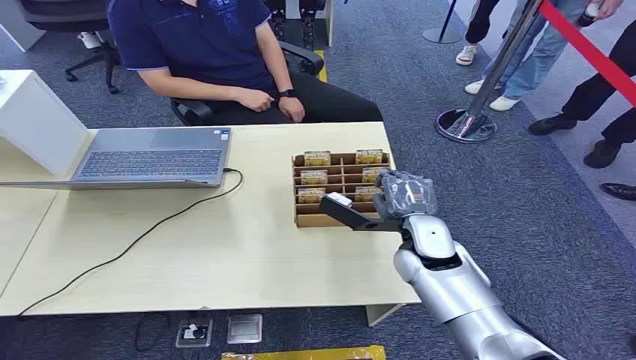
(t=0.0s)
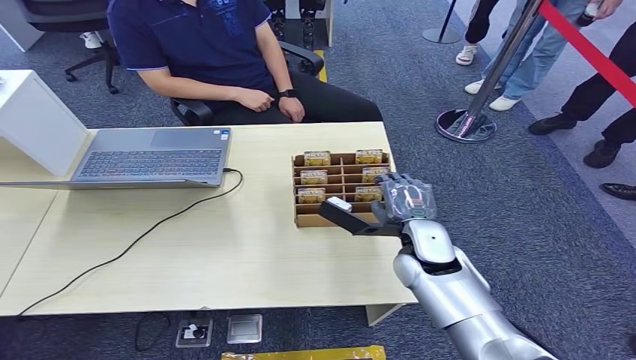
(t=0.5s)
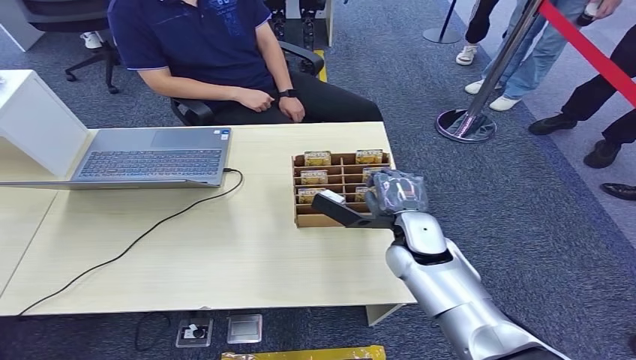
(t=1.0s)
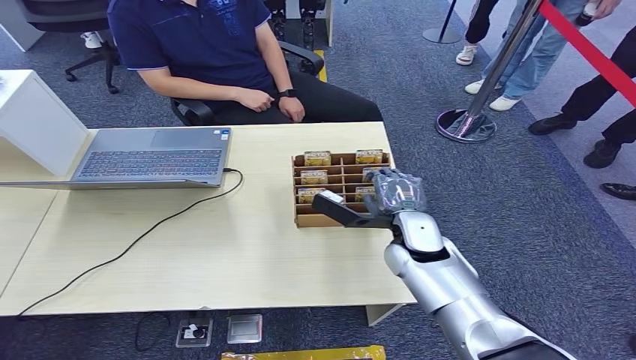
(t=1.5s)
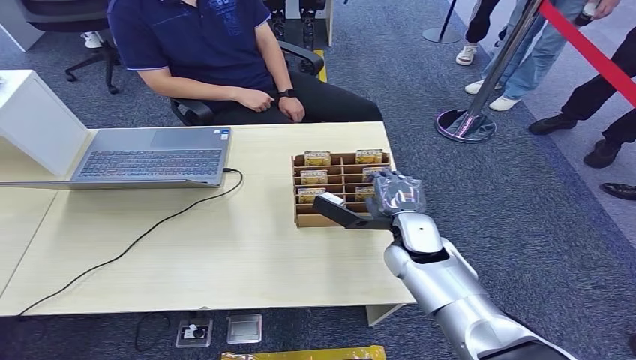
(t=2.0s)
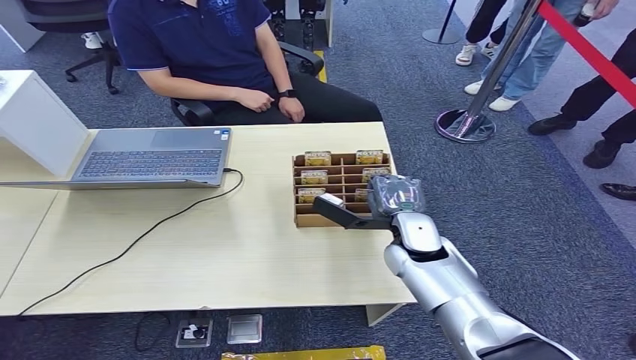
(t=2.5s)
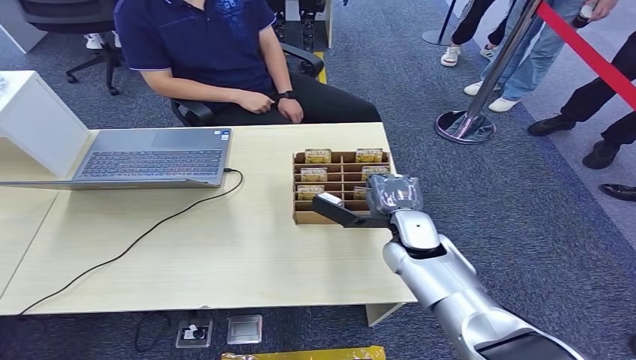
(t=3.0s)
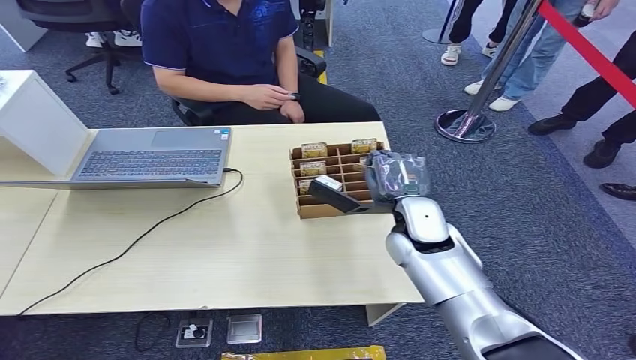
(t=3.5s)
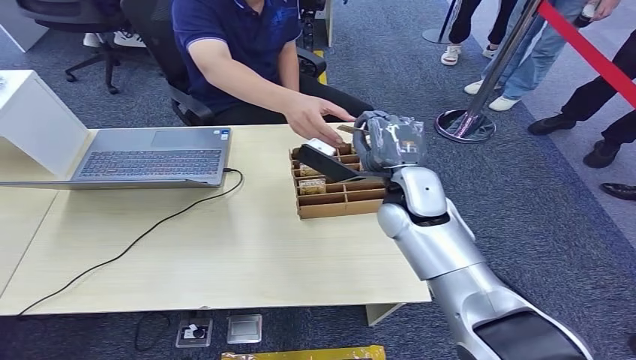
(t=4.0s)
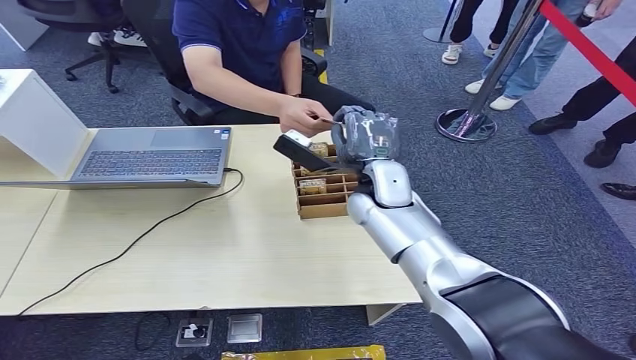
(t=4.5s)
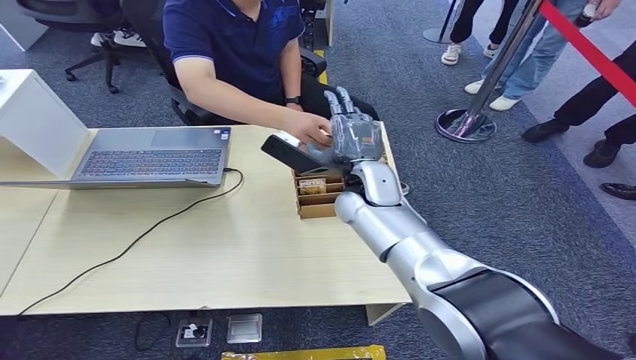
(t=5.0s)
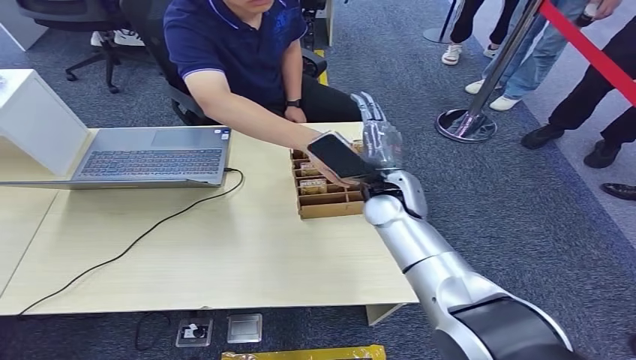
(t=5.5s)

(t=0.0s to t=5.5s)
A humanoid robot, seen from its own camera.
Step, t=0.0s - t=3.5s: Pick up the key card from the card box.
Step, t=4.0s - t=5.5s: Hand the key card to the target.
t=2.0s - t=3.5s: The hands stay close to where they were, moving slightly.

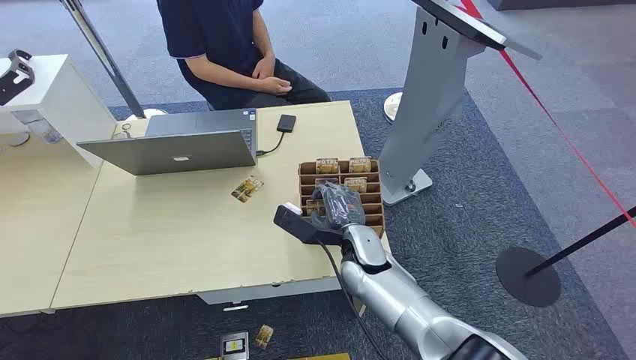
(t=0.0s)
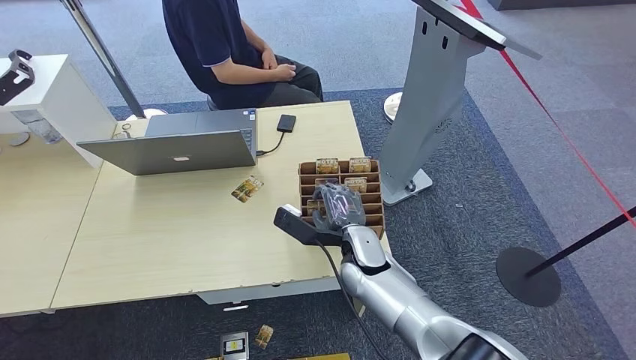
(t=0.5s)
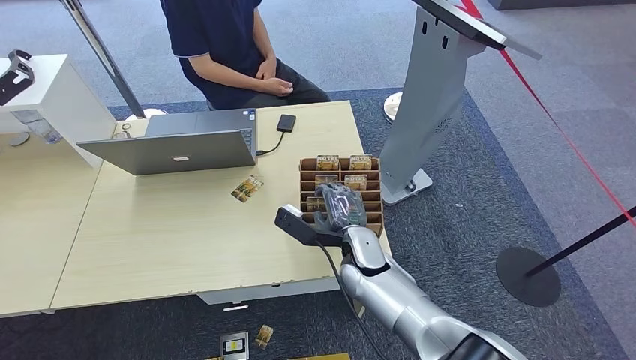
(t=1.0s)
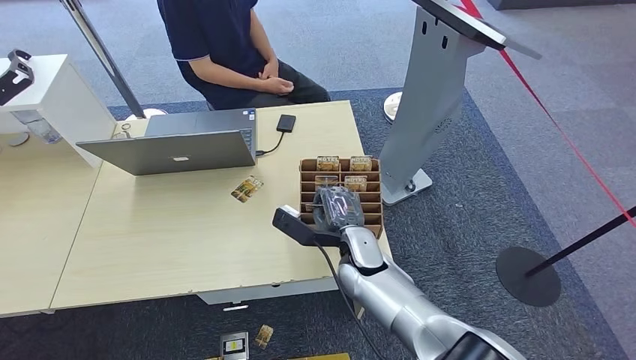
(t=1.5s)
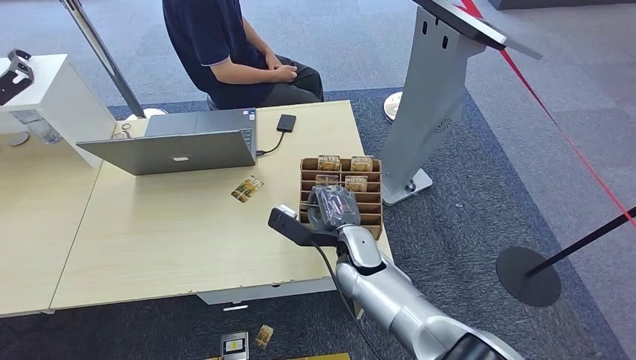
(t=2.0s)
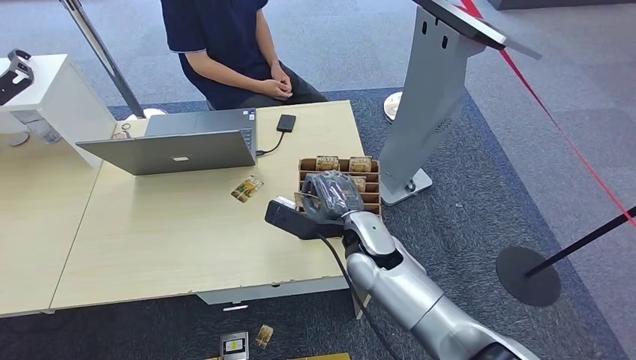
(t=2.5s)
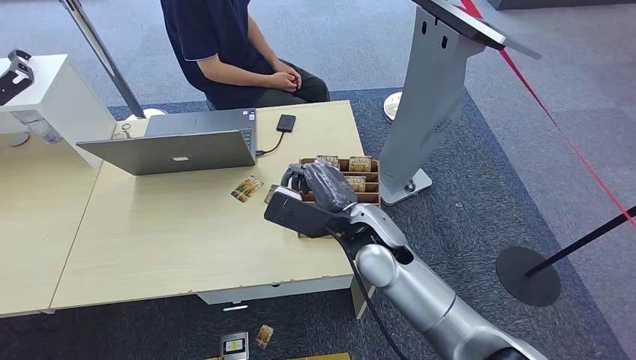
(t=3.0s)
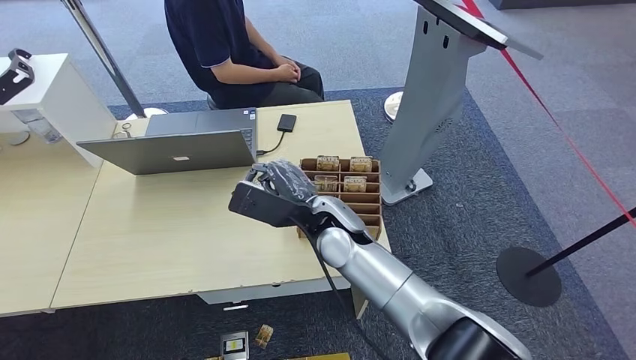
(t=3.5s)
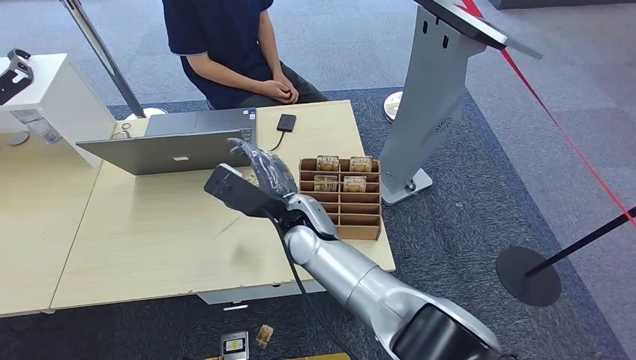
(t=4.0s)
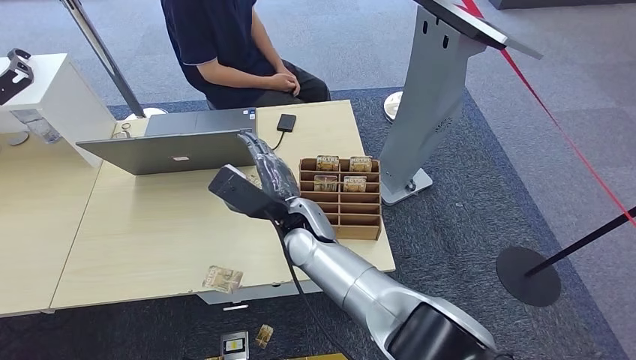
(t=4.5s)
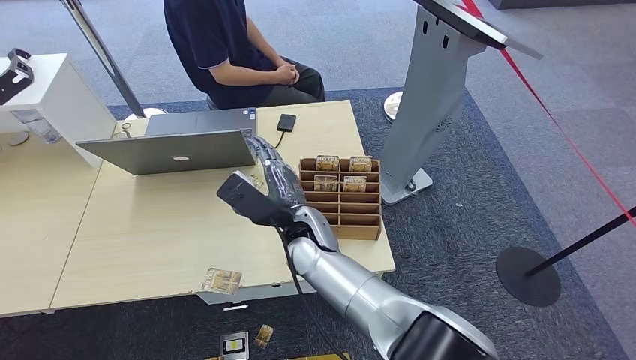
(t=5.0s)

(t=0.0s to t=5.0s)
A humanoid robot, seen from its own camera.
Step, t=0.0s - t=2.5s: Pick up the key card from the card box.
Step, t=3.5s - t=5.0s: Hand the key card to the target.
t=2.5s - t=5.0s: The right hand goes roughly 10 cm to the left.
